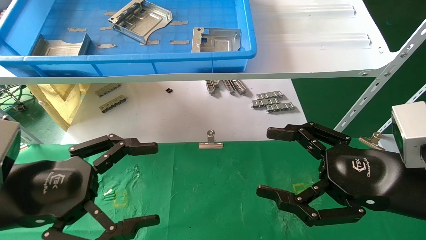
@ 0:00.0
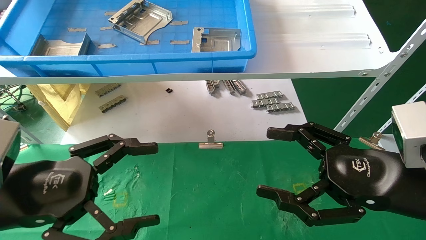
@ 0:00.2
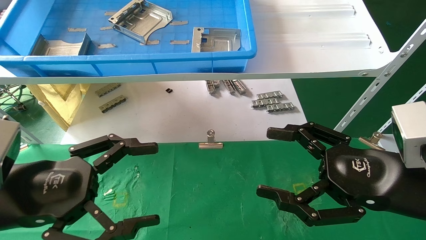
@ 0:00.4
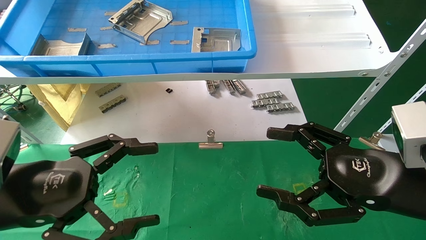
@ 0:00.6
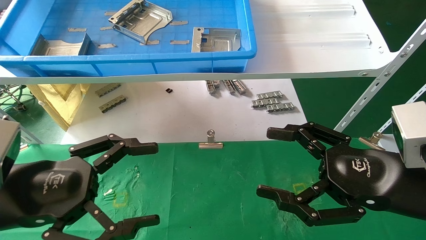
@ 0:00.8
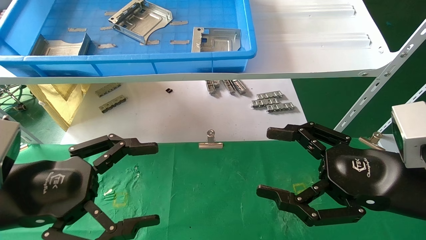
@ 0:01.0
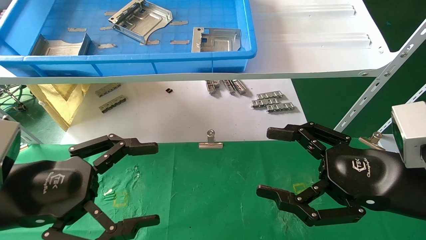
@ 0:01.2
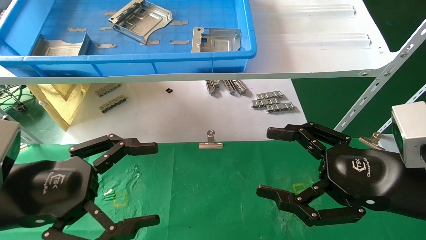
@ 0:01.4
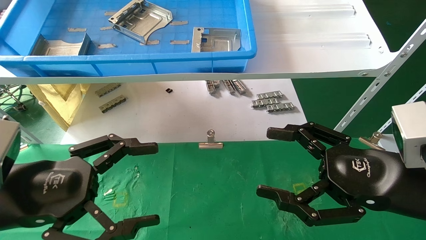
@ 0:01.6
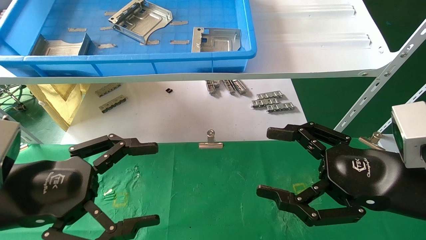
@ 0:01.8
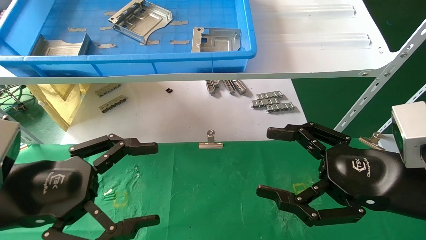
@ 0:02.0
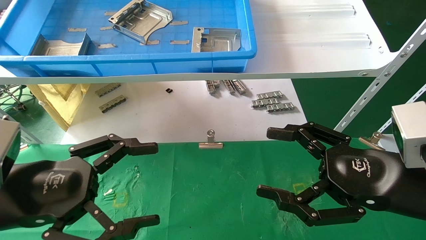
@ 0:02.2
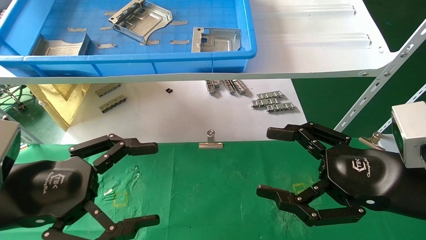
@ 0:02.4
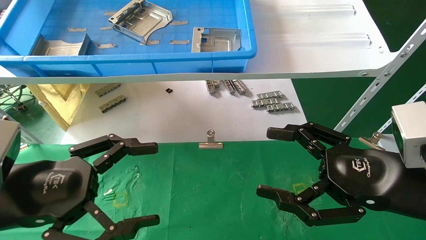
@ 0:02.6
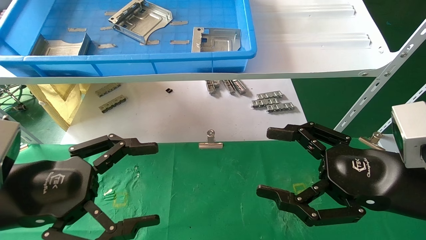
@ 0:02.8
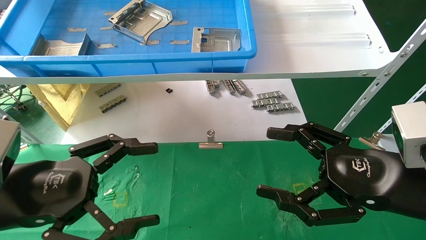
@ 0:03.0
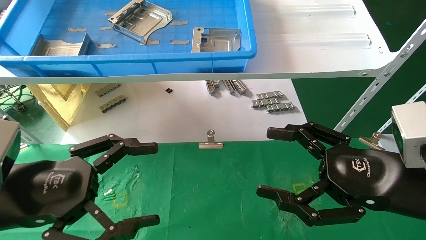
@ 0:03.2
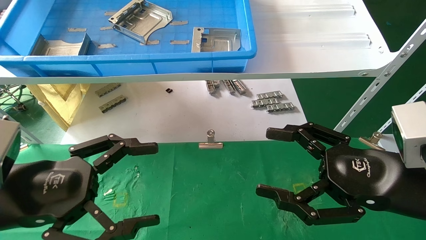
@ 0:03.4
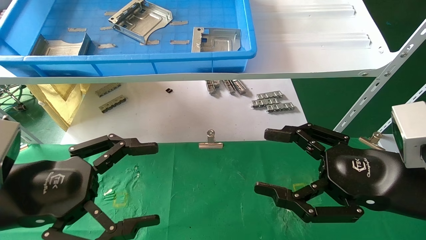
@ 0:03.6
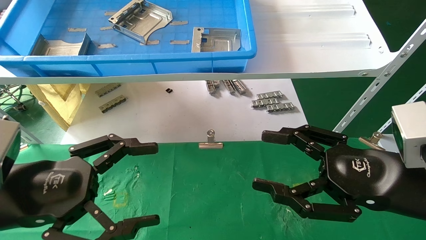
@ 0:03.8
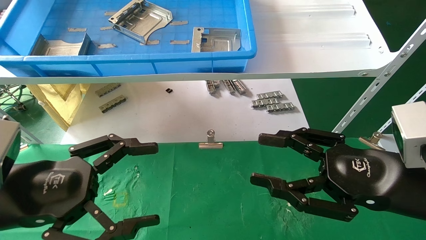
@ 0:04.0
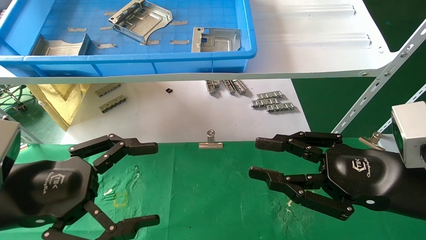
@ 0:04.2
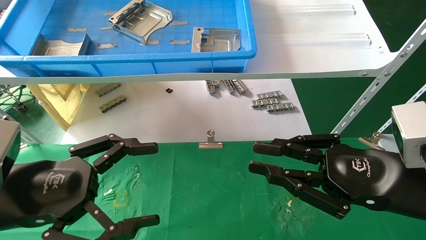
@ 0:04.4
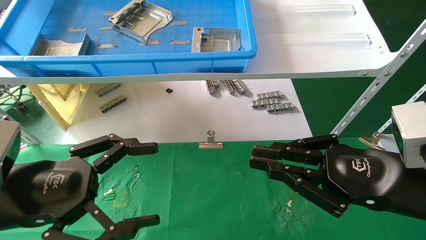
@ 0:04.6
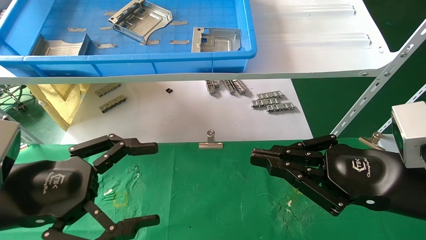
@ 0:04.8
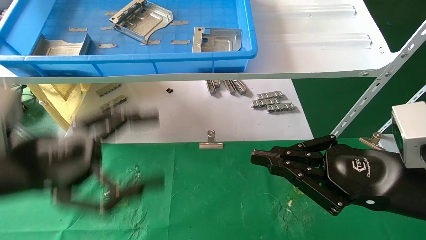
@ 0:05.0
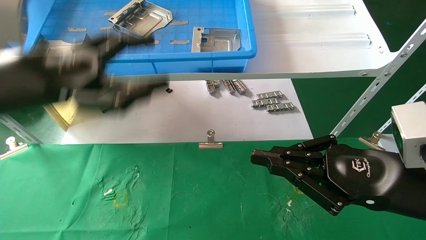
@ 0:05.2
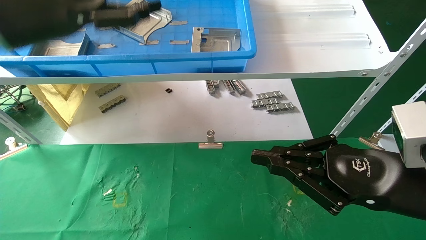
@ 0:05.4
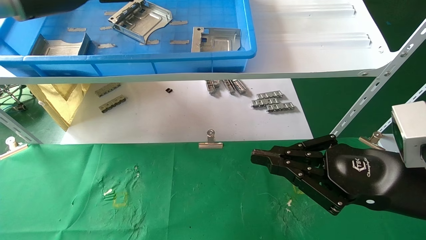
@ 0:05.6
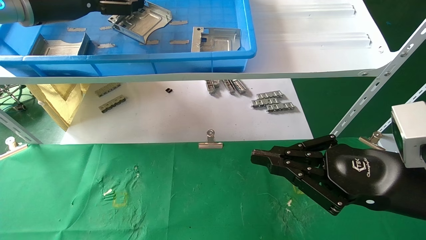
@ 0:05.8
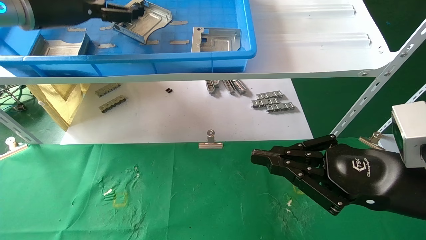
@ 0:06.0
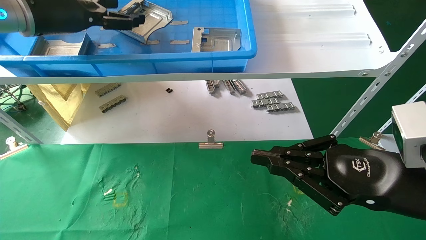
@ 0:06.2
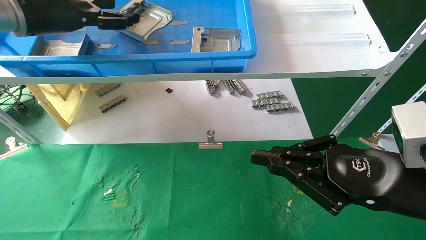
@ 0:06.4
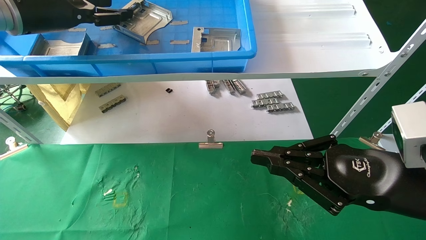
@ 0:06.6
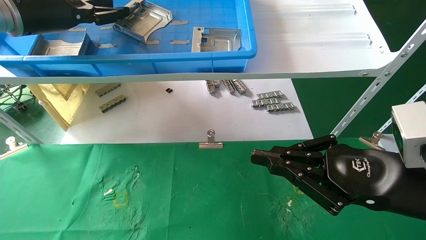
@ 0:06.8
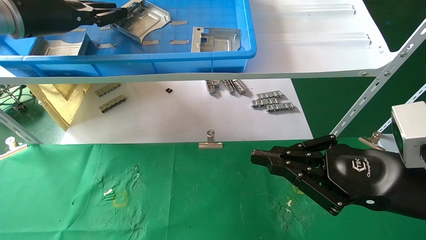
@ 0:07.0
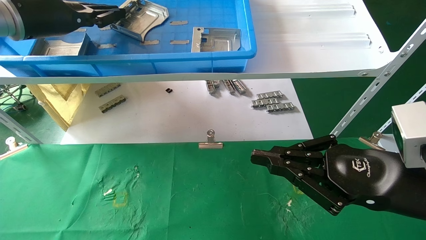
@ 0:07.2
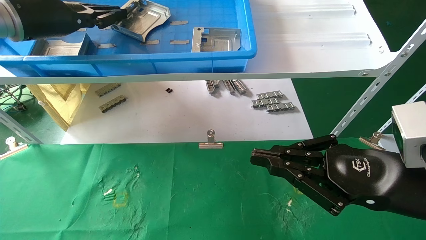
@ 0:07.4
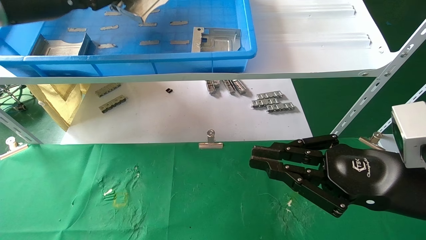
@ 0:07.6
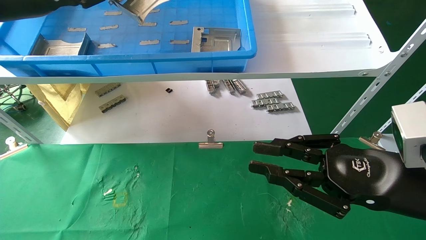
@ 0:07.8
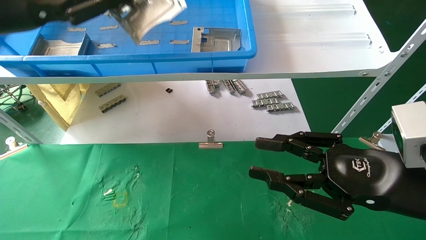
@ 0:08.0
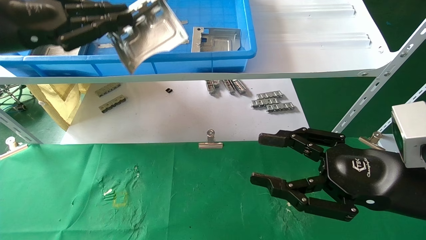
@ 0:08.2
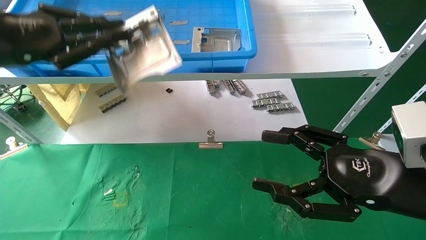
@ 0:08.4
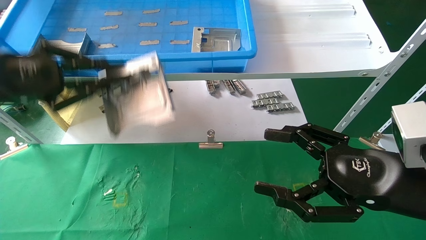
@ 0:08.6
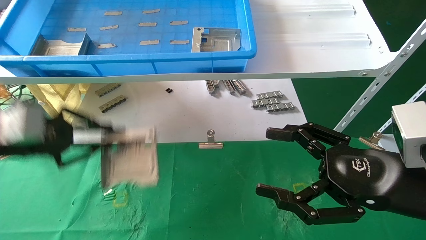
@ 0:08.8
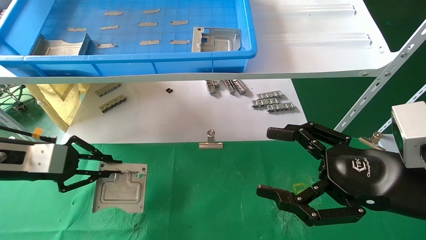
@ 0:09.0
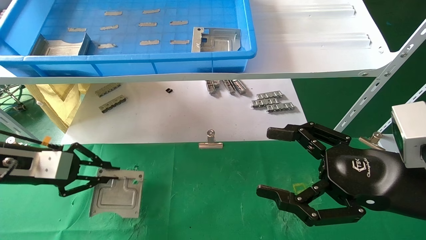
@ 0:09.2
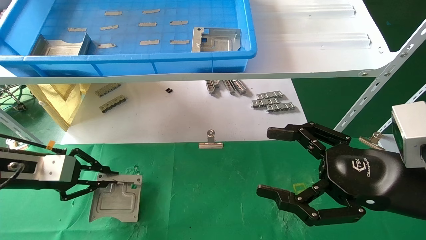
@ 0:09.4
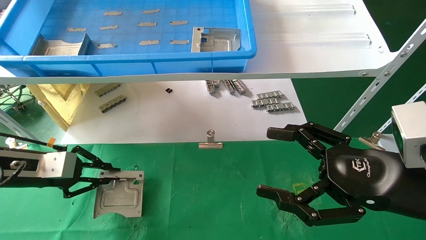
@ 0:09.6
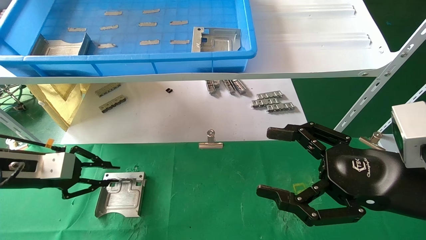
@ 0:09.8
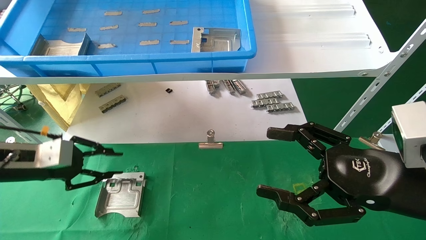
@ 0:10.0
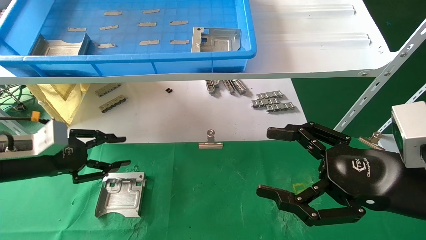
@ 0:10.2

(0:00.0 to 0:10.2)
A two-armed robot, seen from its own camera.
Task of the whole recording: use the mechanical arm to pick up the parts and place them on the table.
Step, 0:04.0 - 0:08.0: Pick up the hard drive bracket from the feeding area.
0:00.0 - 0:03.0: Both grippers stay put.
0:03.0 - 0:04.4: The right gripper closes its fingers.
0:04.4 - 0:05.8: The right gripper closes up. The left gripper moves upward and forward, roughly 30 cm.
0:05.8 - 0:07.2: The left gripper closes up.
0:07.2 - 0:08.8: The left gripper shifts about 20 cm downward and backward, while the right gripper opens its fingers.
0:08.8 - 0:10.2: The left gripper is displaced downward by some 10 cm.

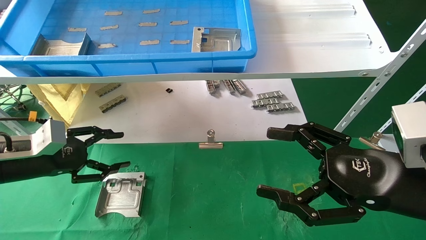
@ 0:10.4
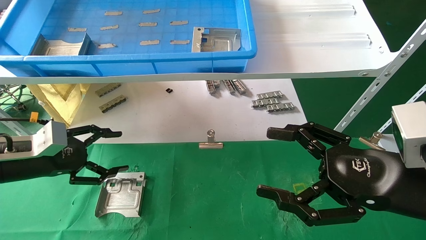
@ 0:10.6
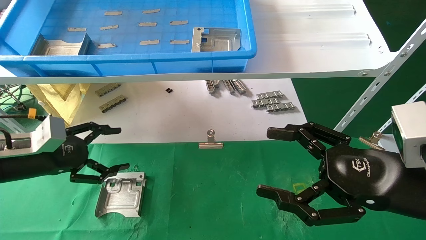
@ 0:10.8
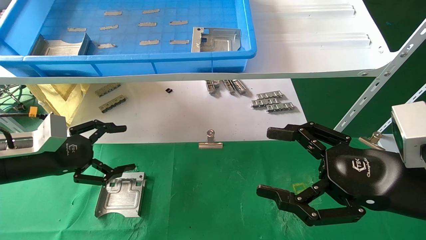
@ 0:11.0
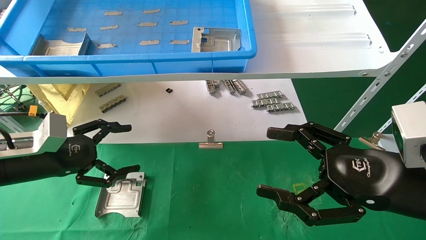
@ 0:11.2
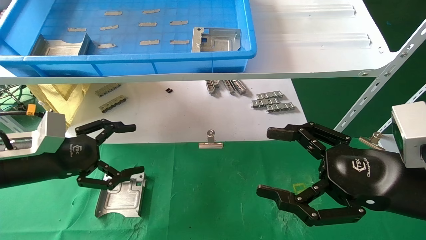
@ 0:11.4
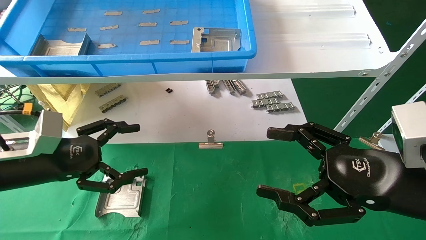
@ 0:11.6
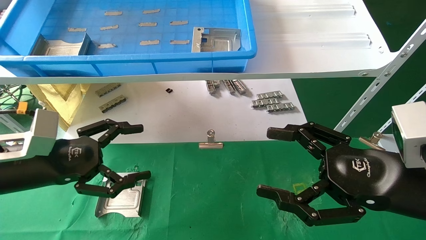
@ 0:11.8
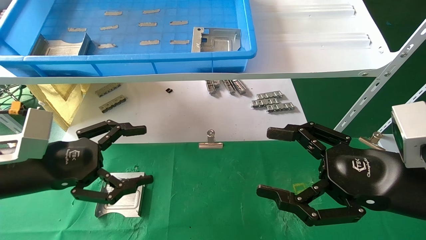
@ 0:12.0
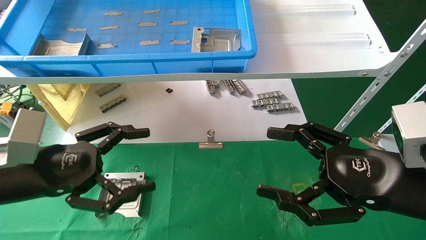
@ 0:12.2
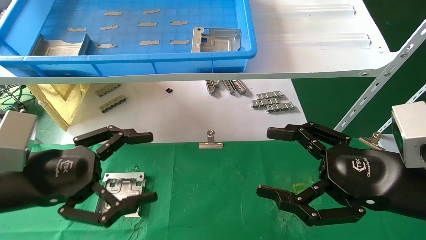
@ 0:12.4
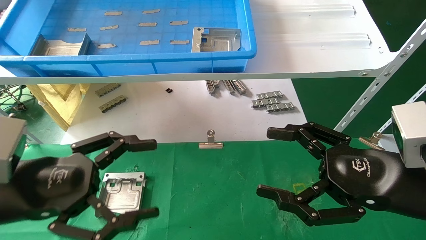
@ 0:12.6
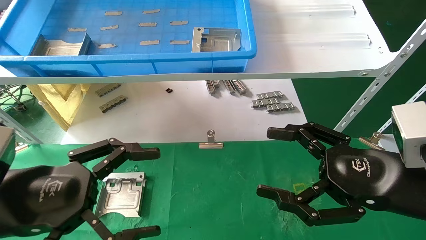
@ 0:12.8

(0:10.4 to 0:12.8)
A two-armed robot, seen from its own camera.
Task of the whole recording: use the mechanical arm to pick up the parts and place them on the table.
0:10.4 - 0:11.6: The left gripper is displaced to the right by about 5 cm, and opens its fingers.
0:11.6 - 0:12.8: The left gripper is displaced backward by approximately 10 cm.
